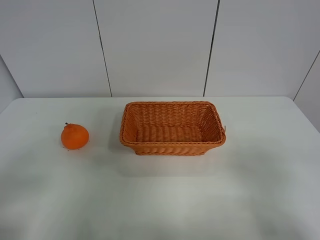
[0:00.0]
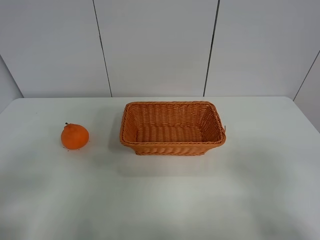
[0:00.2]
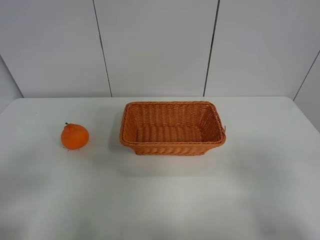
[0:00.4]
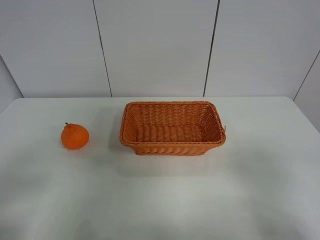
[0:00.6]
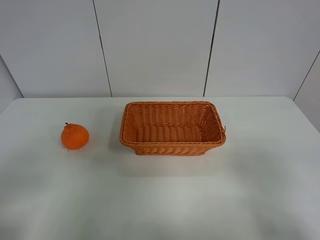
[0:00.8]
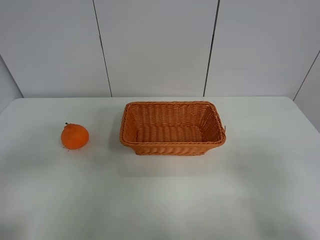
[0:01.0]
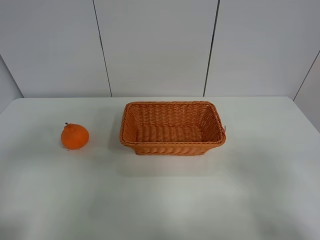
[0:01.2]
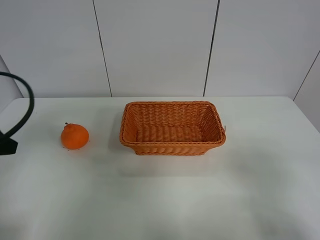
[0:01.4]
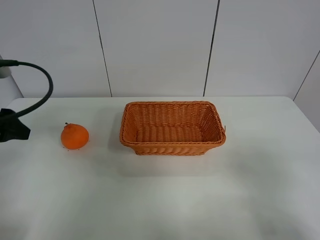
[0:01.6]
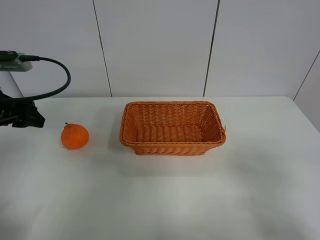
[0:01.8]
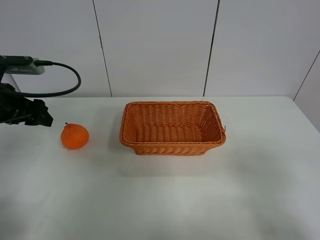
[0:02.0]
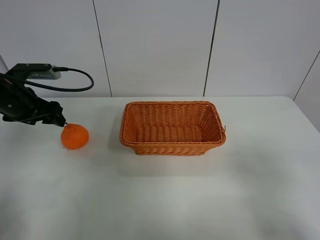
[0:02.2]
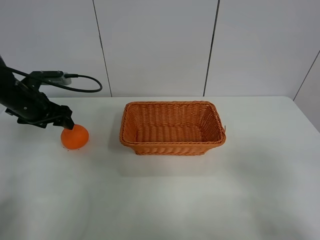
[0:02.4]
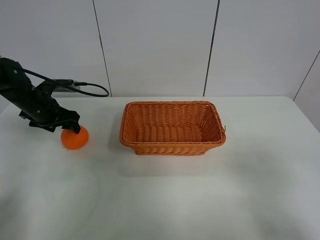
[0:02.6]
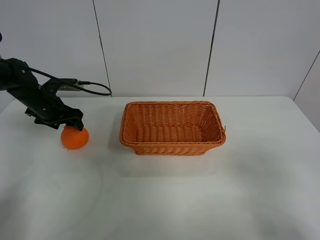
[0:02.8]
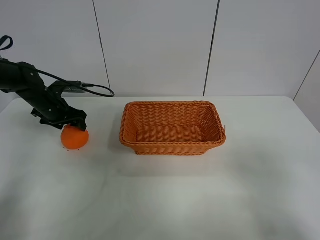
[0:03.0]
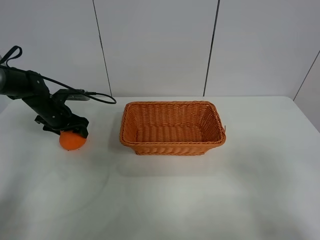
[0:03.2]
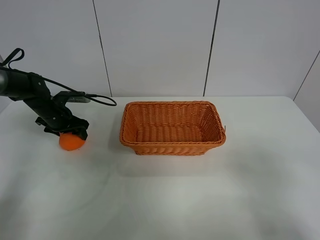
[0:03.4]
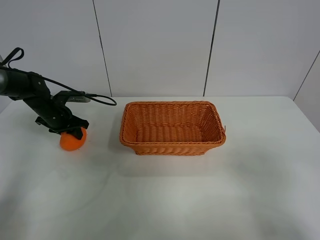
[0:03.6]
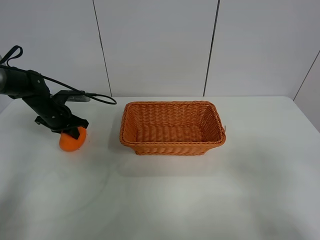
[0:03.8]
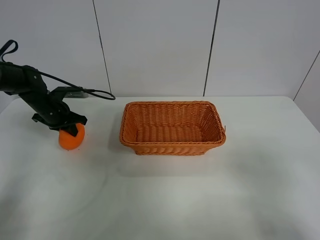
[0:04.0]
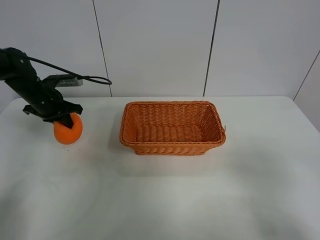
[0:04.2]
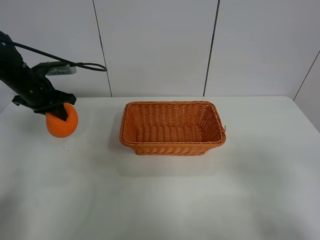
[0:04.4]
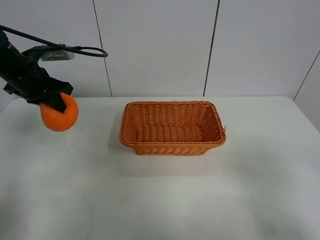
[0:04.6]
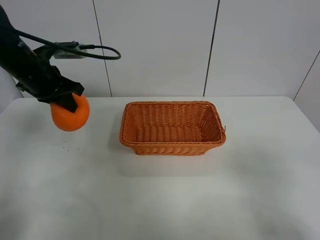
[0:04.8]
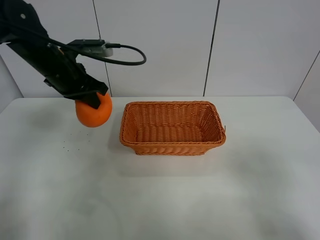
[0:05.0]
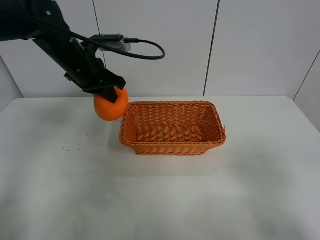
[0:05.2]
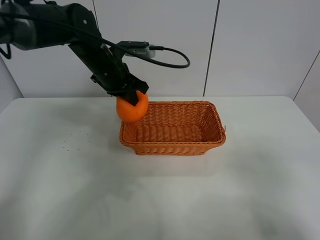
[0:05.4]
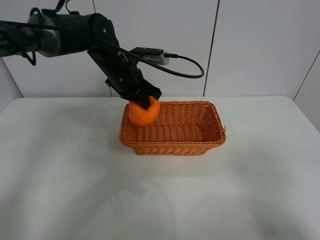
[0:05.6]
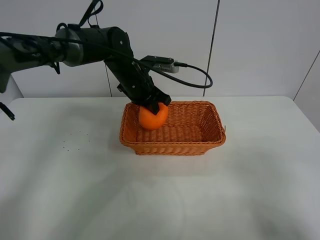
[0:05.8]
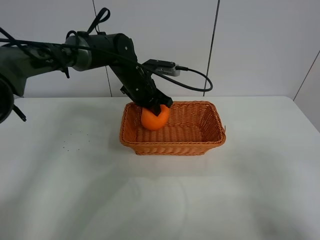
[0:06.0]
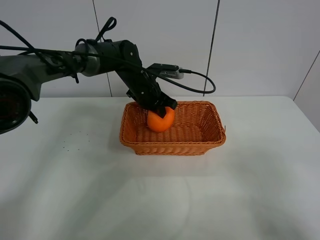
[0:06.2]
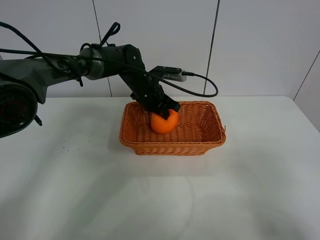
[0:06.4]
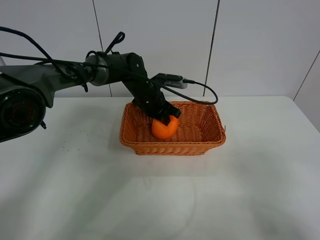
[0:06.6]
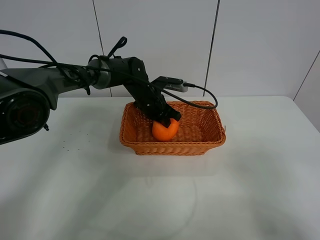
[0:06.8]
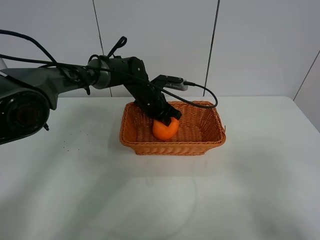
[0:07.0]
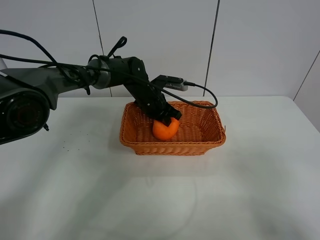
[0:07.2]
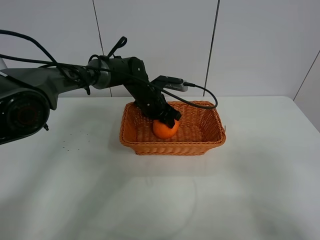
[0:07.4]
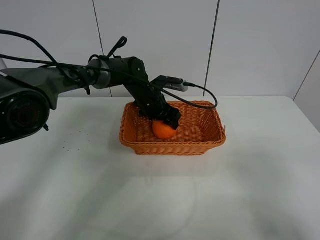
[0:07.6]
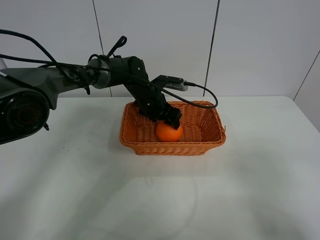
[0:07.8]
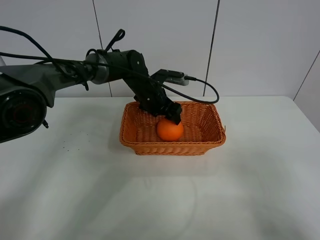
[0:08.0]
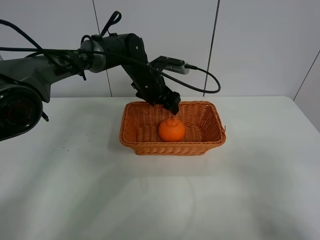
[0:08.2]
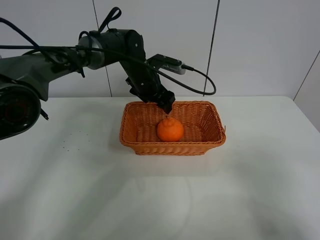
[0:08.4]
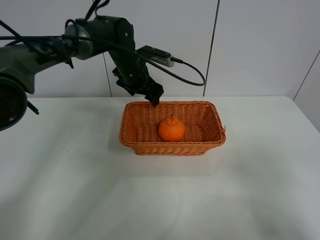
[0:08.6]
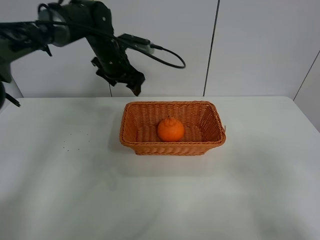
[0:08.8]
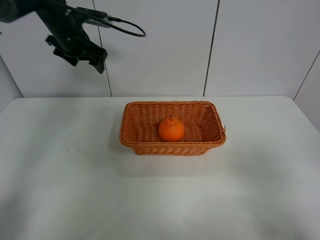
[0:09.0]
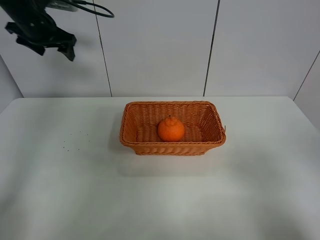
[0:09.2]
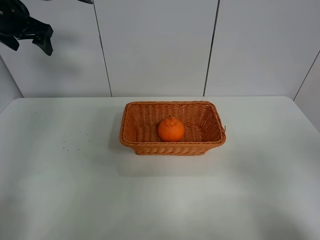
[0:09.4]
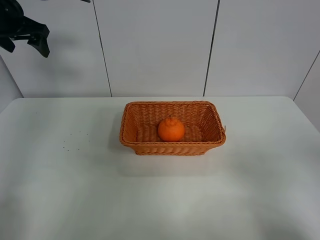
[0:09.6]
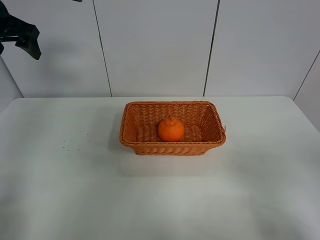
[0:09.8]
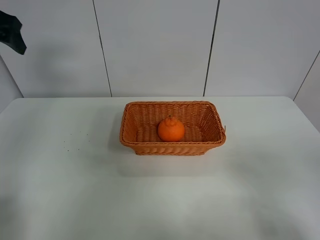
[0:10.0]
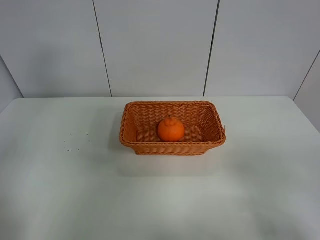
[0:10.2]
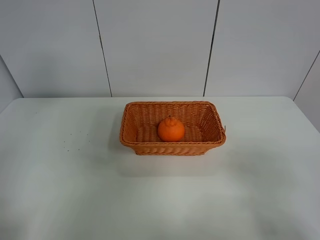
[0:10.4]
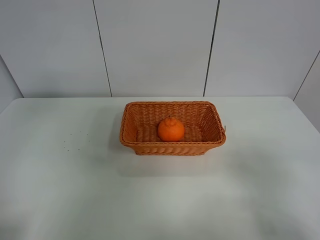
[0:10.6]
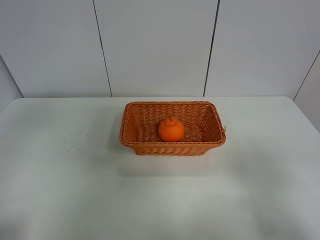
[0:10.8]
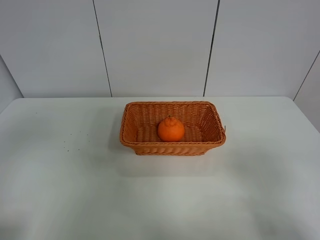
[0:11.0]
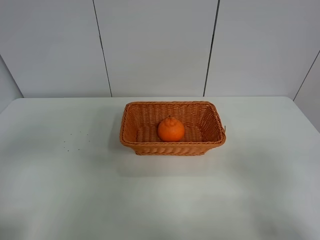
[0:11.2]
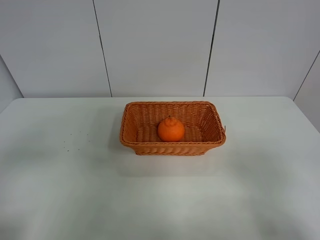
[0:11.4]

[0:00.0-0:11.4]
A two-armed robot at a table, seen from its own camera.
Task of the whole recording: left gripper grabs oranges and puts them in the basket.
Step, 0:00.0 to 0:03.6: Grasp the orange with left gripper.
Step, 0:03.8 to 0:08.8: Place the orange in the basket with left gripper.
0:00.0 to 0:01.4: The left gripper goes approximately 15 cm forward.
0:01.4 to 0:02.8: The left gripper shifts about 25 cm forward and downward.
0:02.8 to 0:04.2: The left gripper closes up.
0:04.2 to 0:05.6: The left gripper travels to the right by roughly 20 cm.
0:05.6 to 0:07.2: The left gripper travels downward by some 10 cm.
0:07.2 to 0:08.6: The left gripper goes some 10 cm upward and to the left, and opens its fingers.
0:08.6 to 0:10.0: The left gripper goes approximately 30 cm to the left, upward and backward.
0:10.0 to 0:11.4: The left gripper travels backward by some 30 cm.

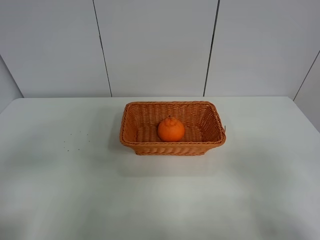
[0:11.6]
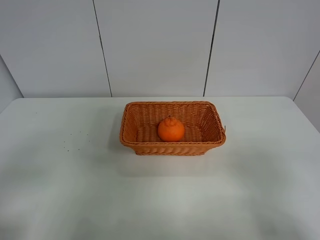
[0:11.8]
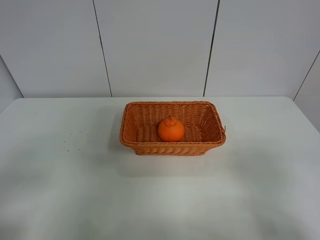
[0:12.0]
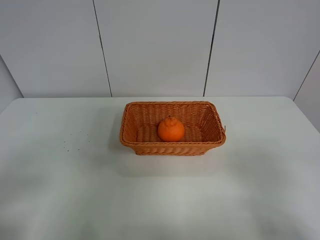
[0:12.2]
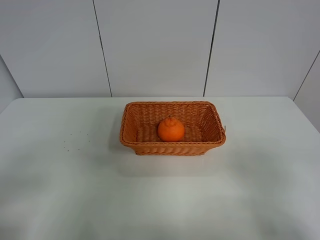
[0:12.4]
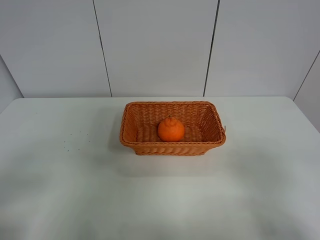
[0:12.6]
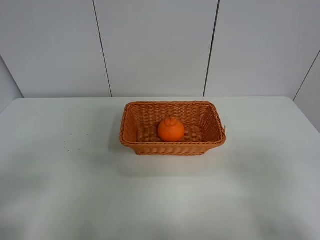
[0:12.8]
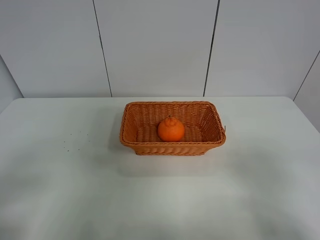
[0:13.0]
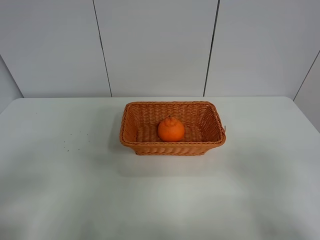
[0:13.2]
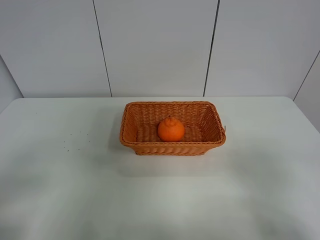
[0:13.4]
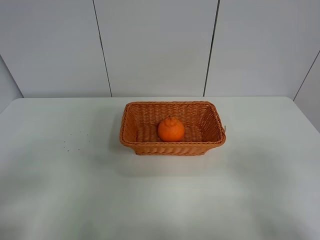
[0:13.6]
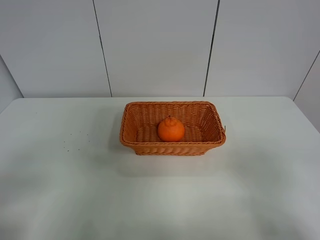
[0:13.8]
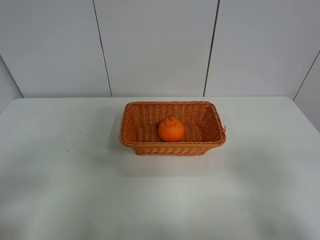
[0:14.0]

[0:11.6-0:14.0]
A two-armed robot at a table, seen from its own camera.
Task of the whole recording: left gripper grabs oranges and puts them in the basket.
0:12.8 to 0:14.0: Both grippers stay about where they are.
